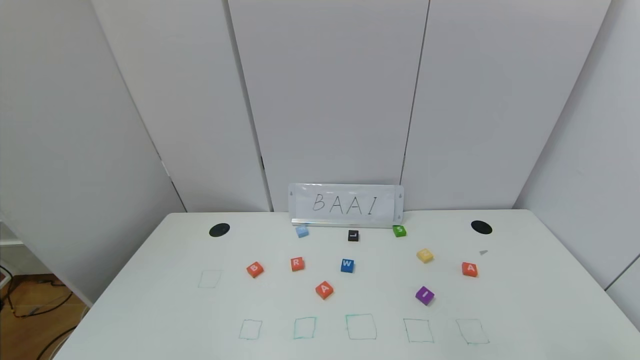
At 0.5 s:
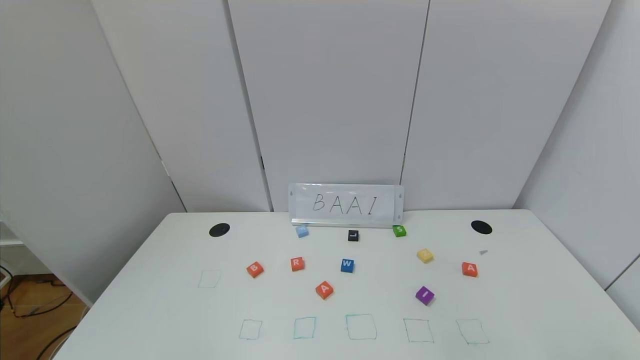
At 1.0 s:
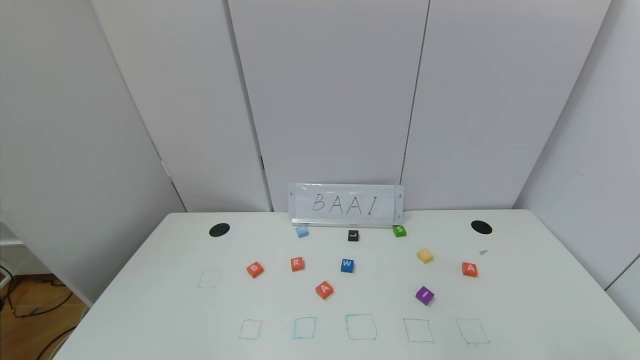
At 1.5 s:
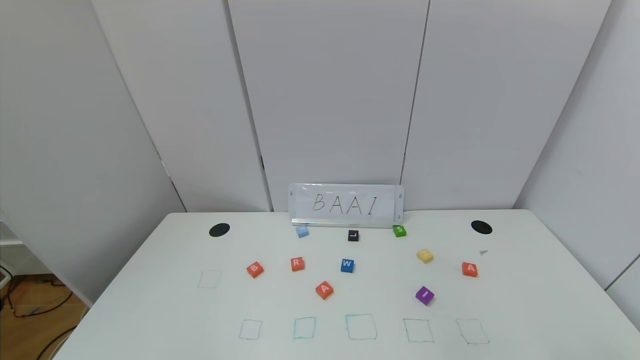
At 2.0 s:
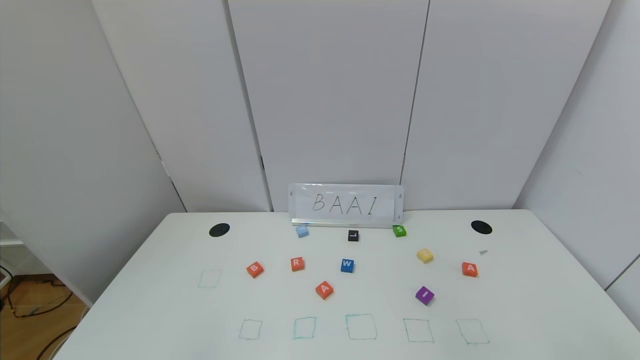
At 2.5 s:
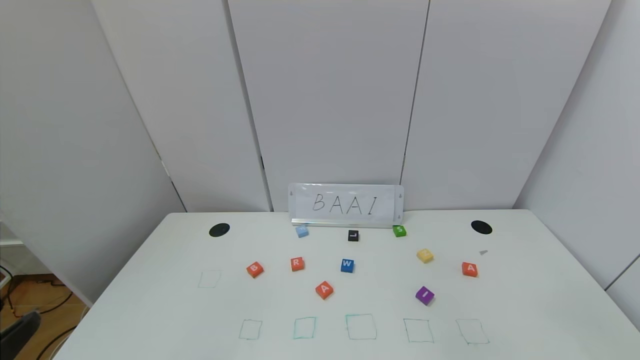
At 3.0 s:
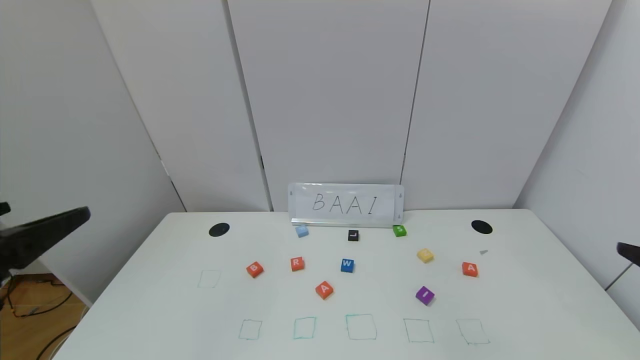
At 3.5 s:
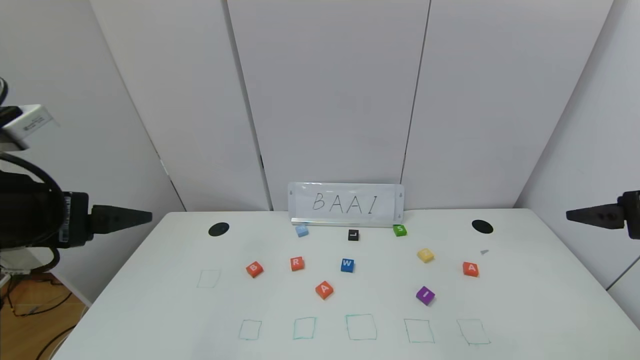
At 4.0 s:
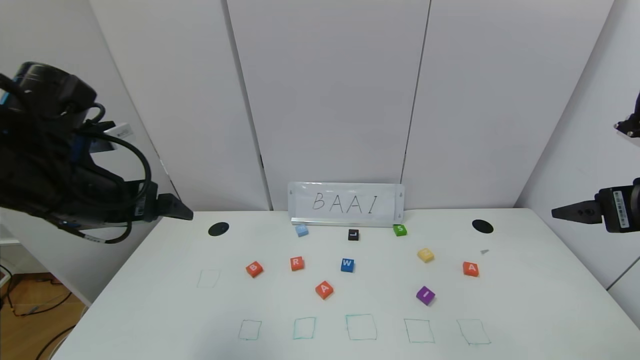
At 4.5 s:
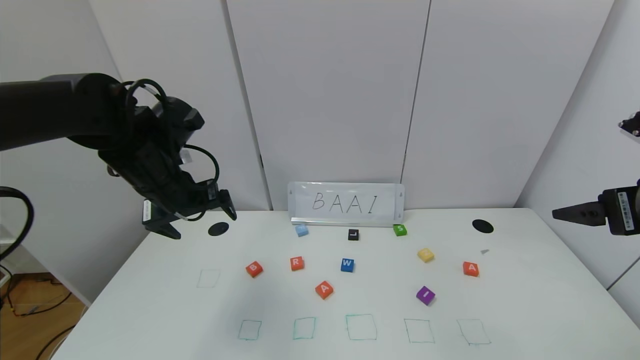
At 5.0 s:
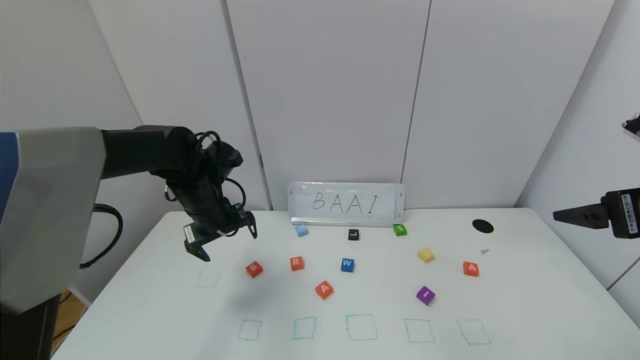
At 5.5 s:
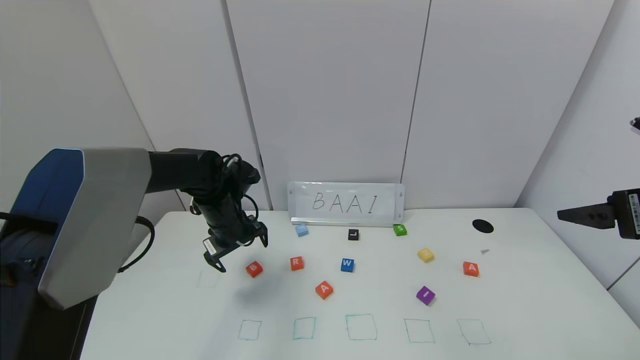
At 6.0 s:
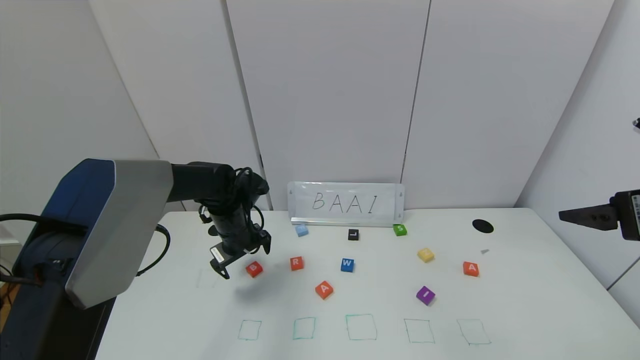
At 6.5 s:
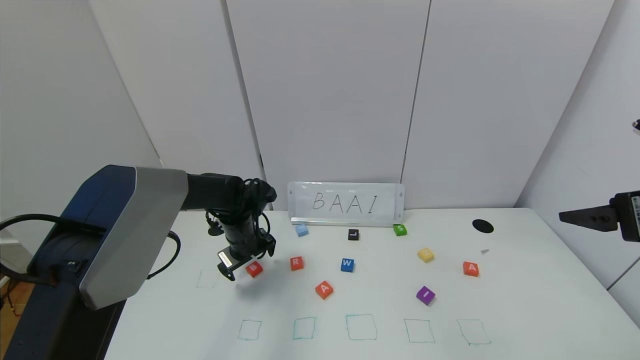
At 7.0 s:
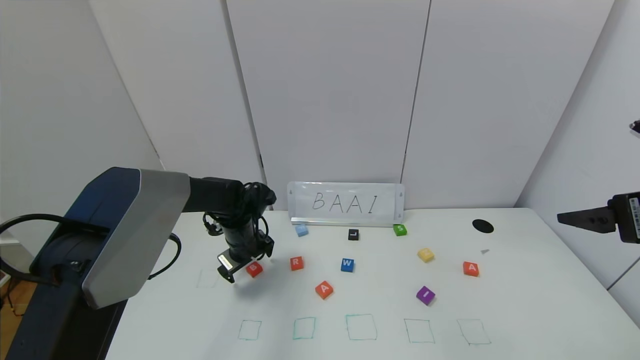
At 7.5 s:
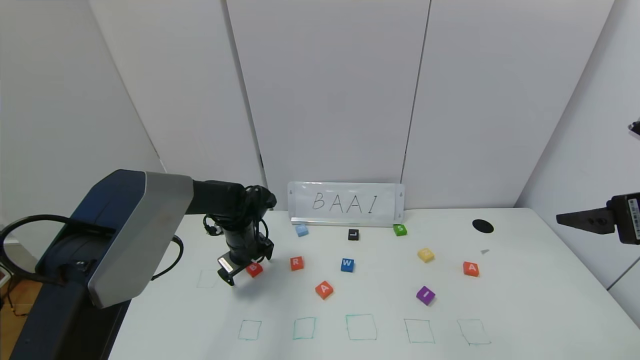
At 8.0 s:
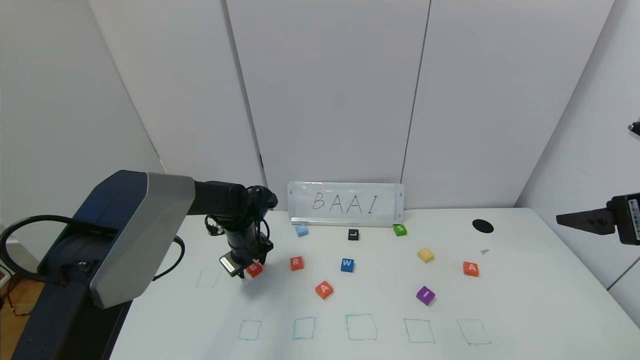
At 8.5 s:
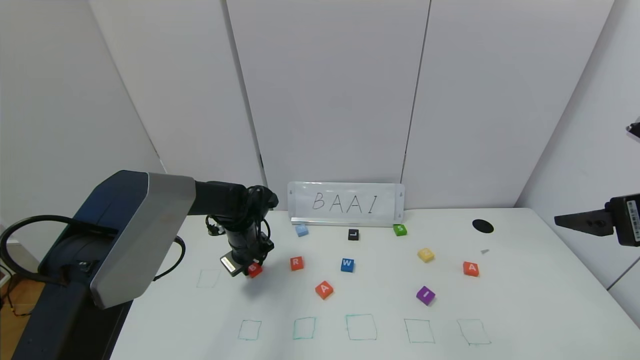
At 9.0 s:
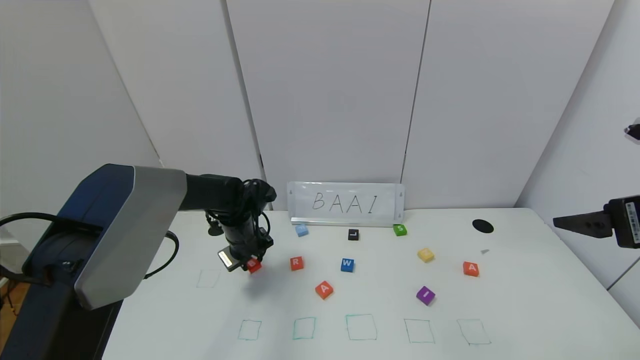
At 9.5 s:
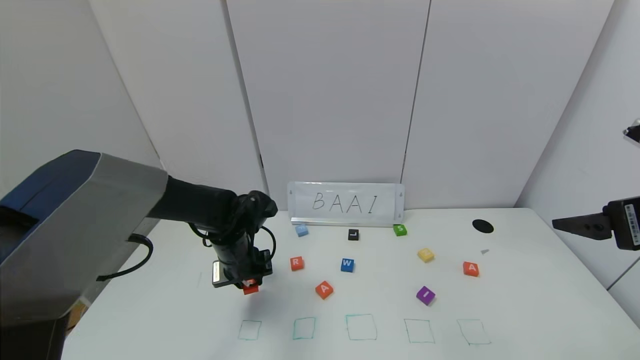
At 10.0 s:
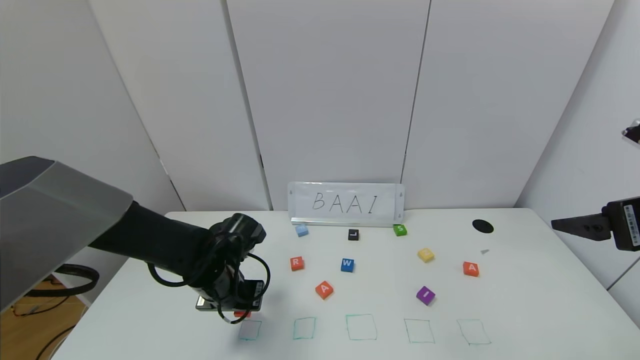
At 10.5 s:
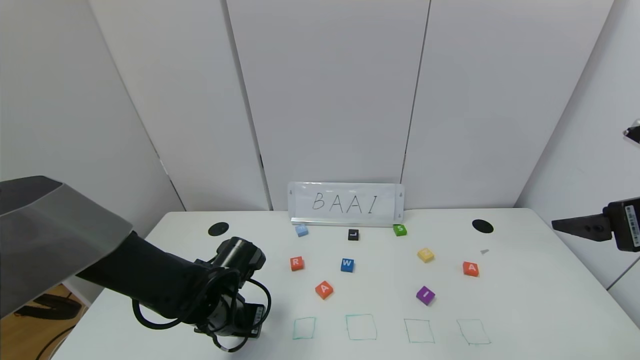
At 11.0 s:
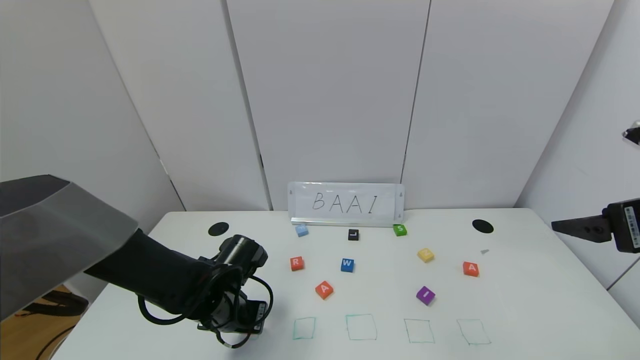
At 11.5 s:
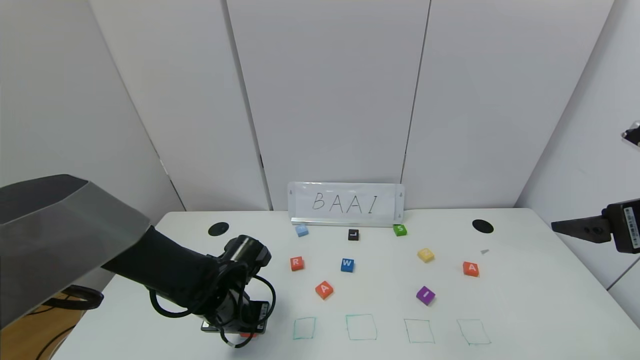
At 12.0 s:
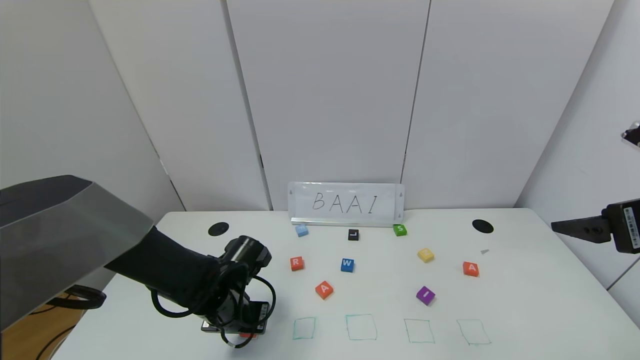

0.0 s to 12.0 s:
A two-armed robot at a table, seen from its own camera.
Task of the whole recording: use the gripper to find blocks with the letters b, a, a, and i on the table and arrange them into BAAI, then find r and N and turn the arranged baai into brian.
2.0 to 4.0 s: The two grippers go approximately 30 cm forward and upward.
4.0 to 6.0 s: The left gripper heads downward and forward, covering roughly 25 cm.
6.0 to 8.0 s: The left gripper closes its fingers.
8.0 to 10.0 s: The left gripper shifts some 15 cm backward.
10.0 to 12.0 s: The grippers move only a little.

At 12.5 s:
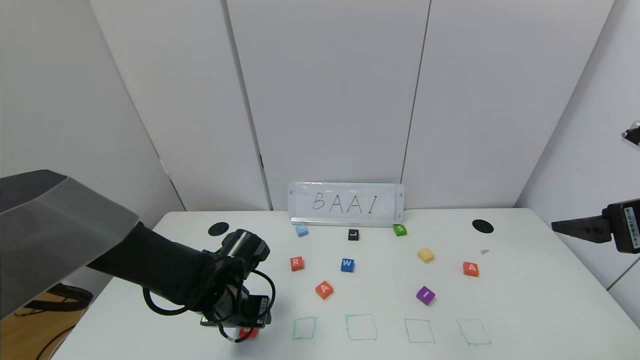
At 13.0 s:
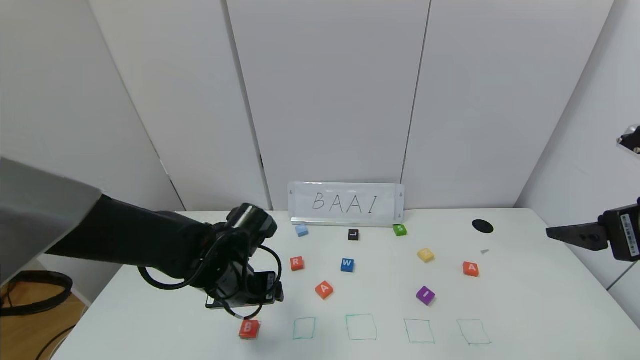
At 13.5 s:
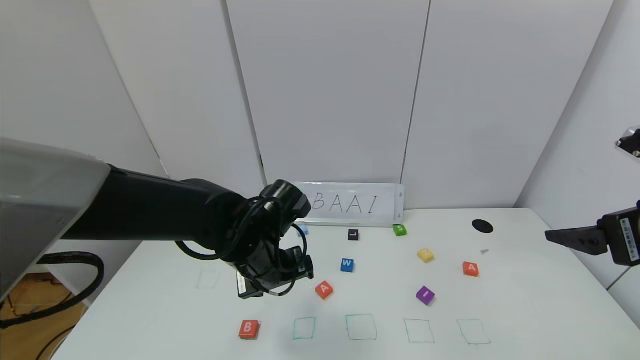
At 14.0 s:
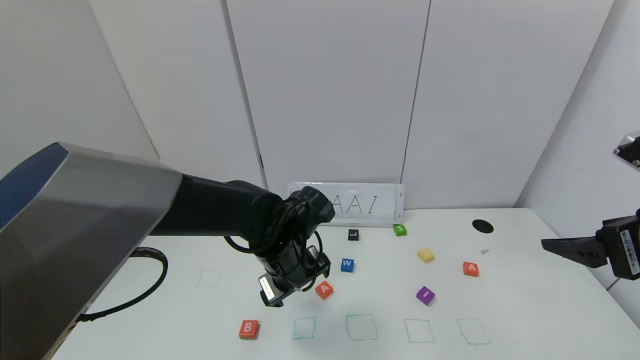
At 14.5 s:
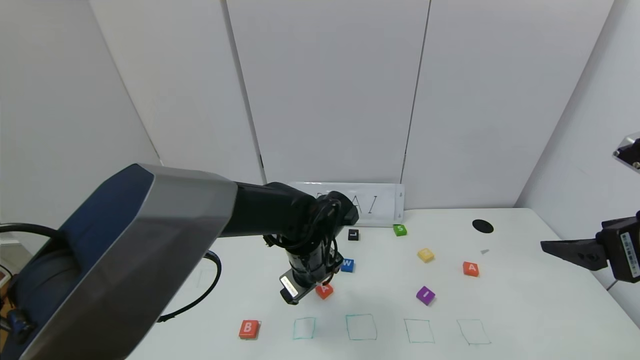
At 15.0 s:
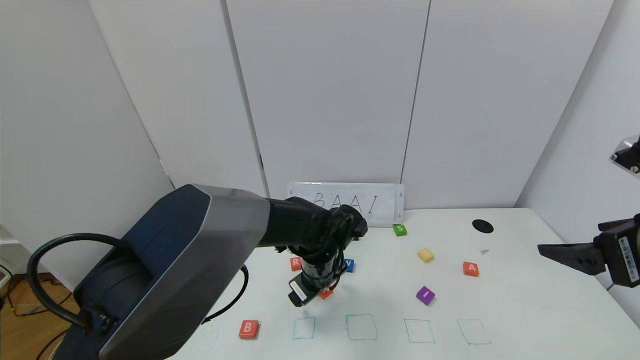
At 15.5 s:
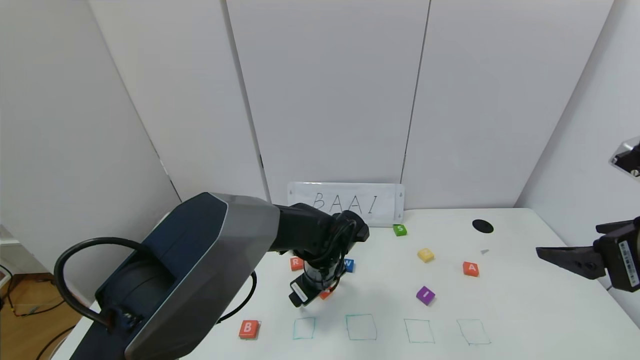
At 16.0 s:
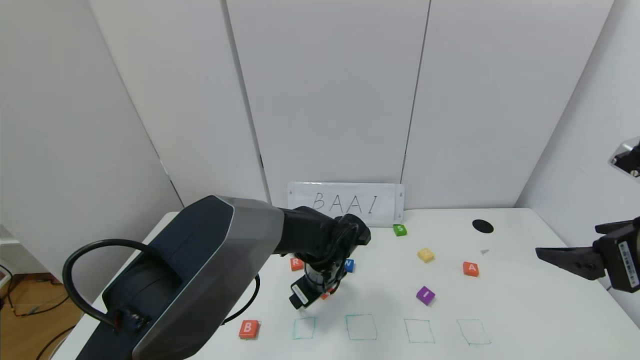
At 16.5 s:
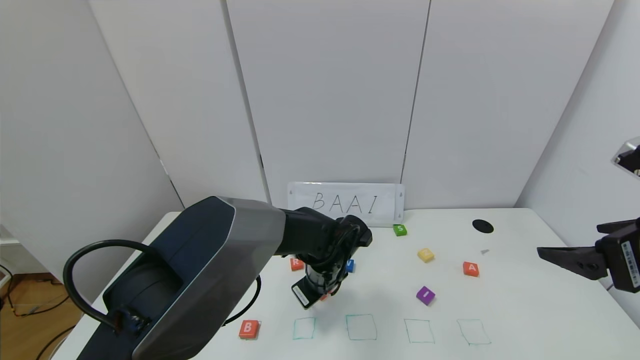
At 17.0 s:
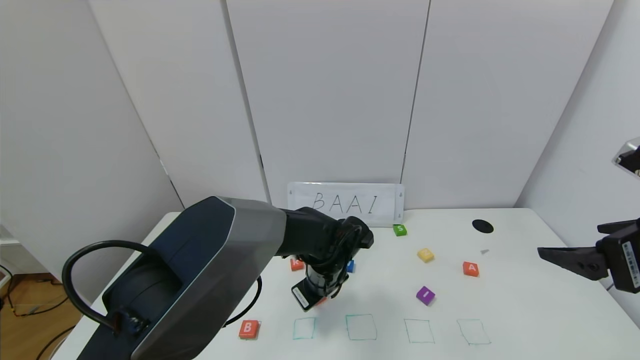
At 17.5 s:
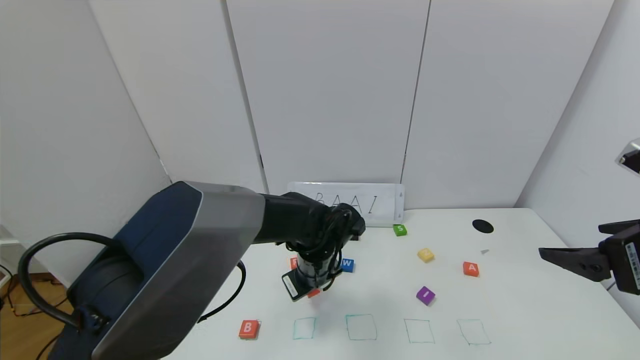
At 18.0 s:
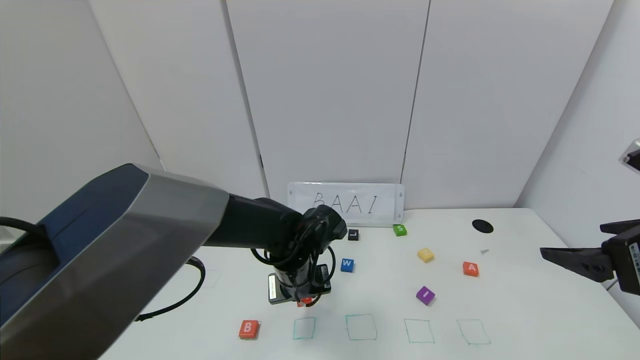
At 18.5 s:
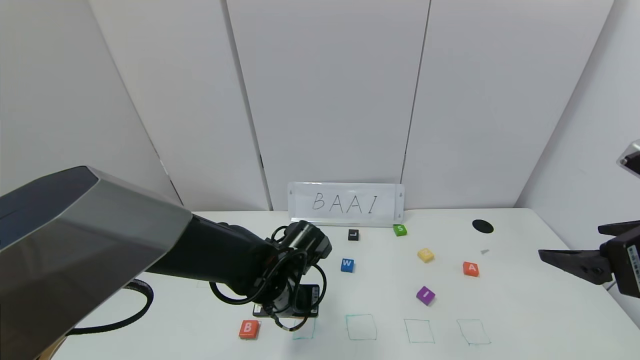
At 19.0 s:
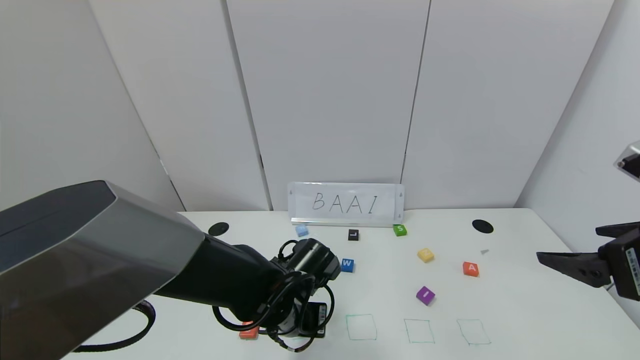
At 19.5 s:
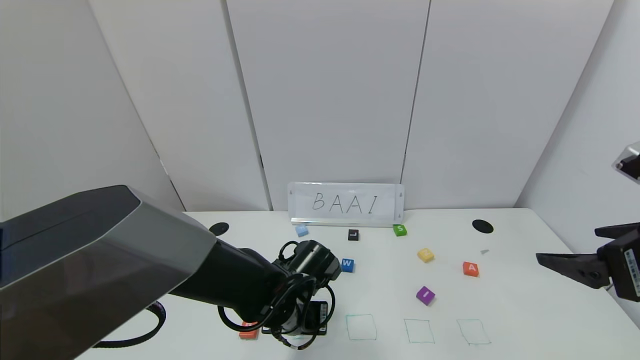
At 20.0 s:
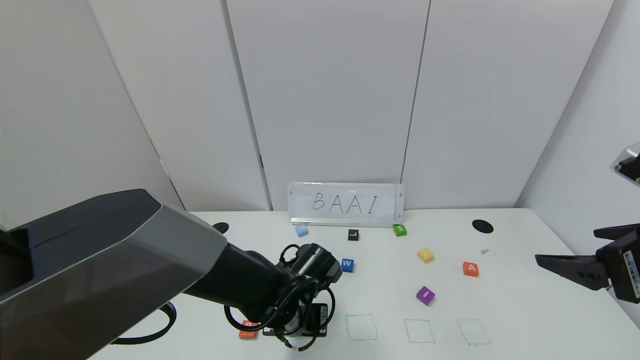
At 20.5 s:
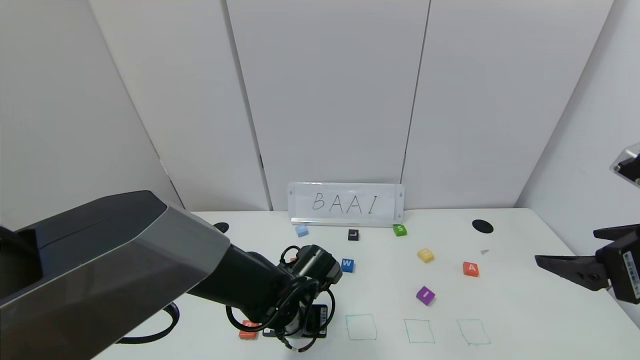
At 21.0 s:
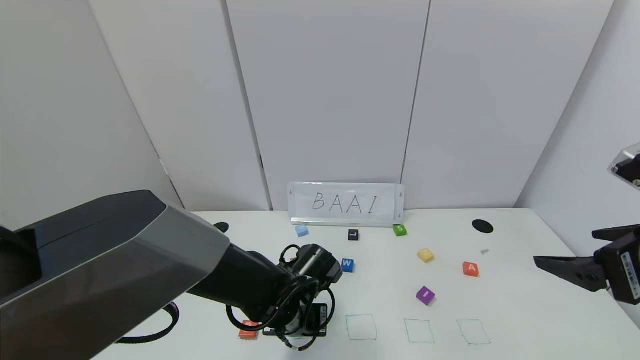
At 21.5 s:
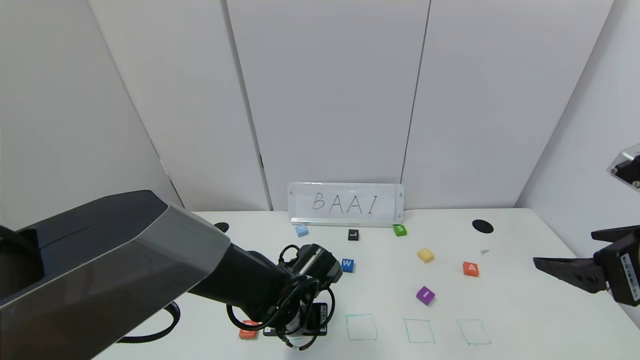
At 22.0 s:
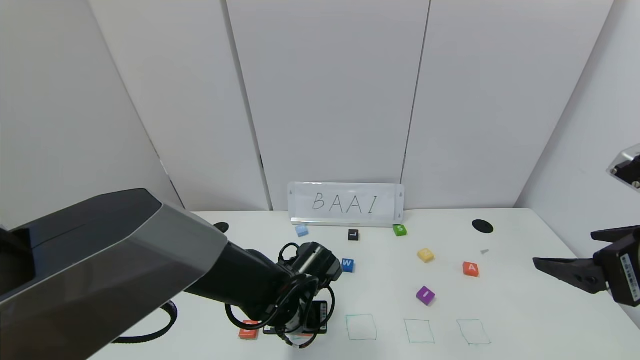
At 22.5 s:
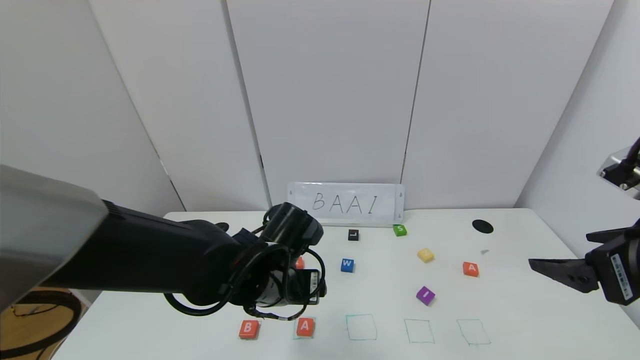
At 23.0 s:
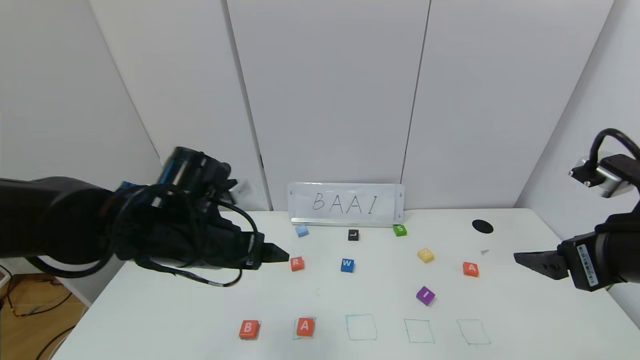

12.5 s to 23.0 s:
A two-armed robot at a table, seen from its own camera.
Task of the whole recording: use the gripper to find blocks with the letters b, a, a, and i on the table and arrange them into BAAI, then find r and N and turn the arranged baai into brian.
Step, 13.0 to 21.5 s: Place the first block A in the second location.
12.5 to 14.5 s: The left gripper moves to the right, roughly 15 cm, and opens up.
14.5 to 16.5 s: The left gripper heads downward, covering roughly 5 cm, and closes its fingers.
16.5 to 19.0 s: The left gripper moves backward and to the left, roughly 10 cm, and closes its fingers.
19.0 to 21.0 s: There are only small adjustments of the grippers.
21.0 to 23.0 s: The left gripper travels upward and to the left by roughly 20 cm, and opens up.
